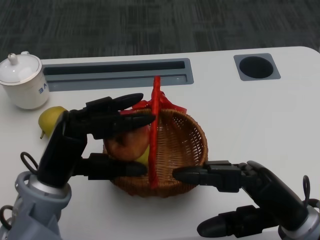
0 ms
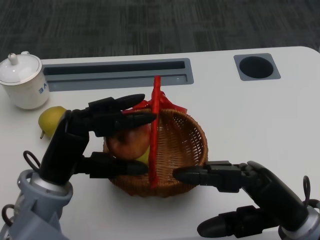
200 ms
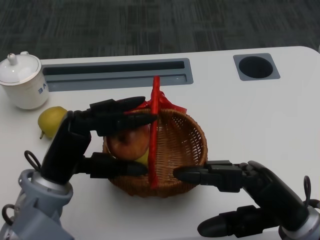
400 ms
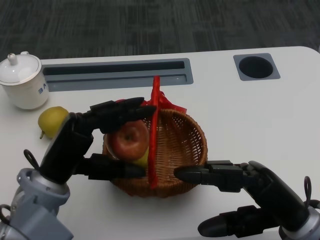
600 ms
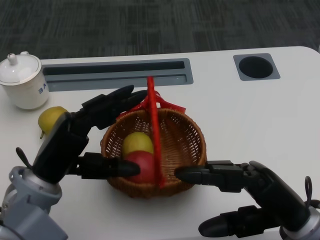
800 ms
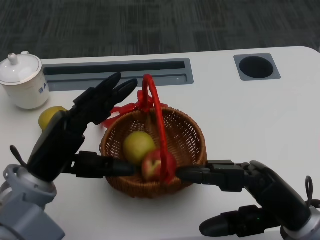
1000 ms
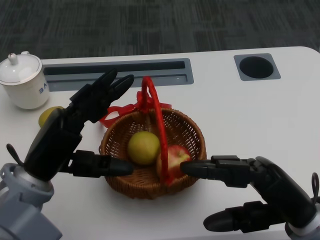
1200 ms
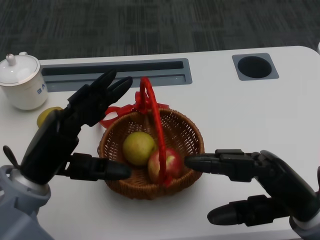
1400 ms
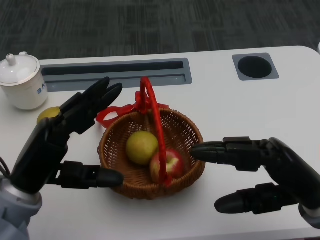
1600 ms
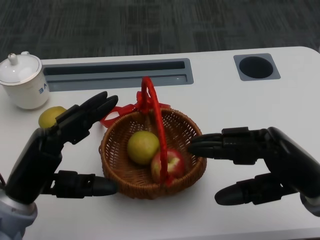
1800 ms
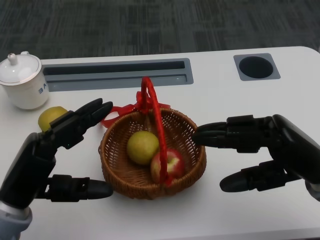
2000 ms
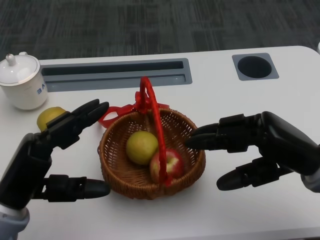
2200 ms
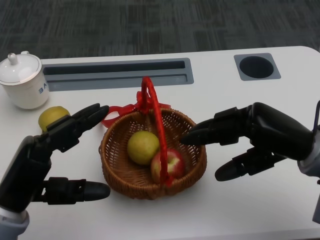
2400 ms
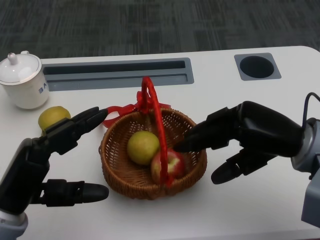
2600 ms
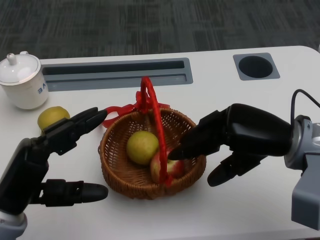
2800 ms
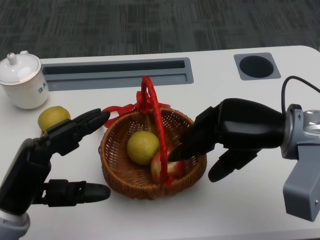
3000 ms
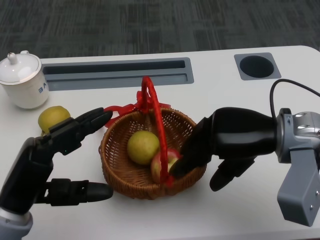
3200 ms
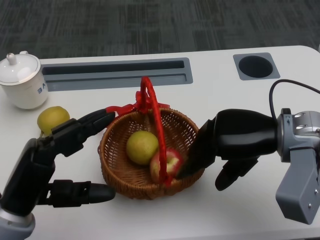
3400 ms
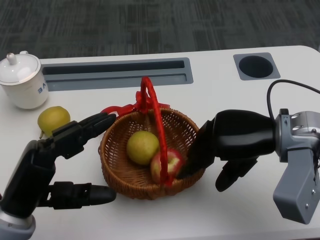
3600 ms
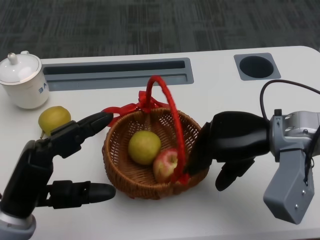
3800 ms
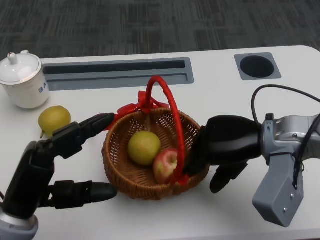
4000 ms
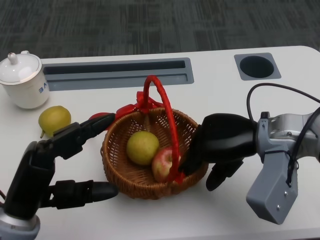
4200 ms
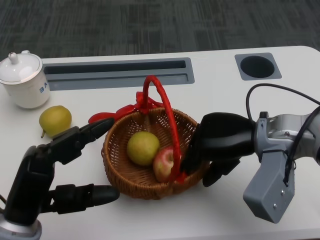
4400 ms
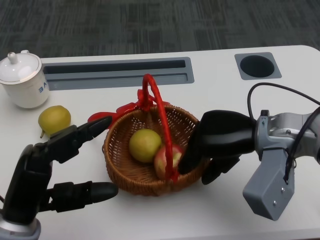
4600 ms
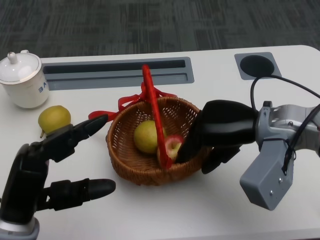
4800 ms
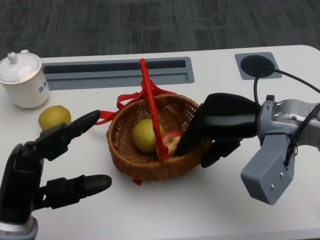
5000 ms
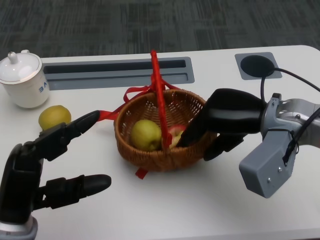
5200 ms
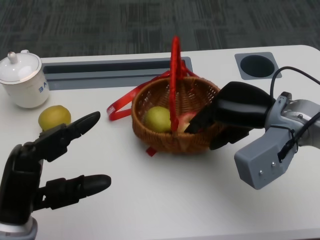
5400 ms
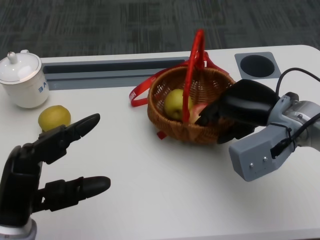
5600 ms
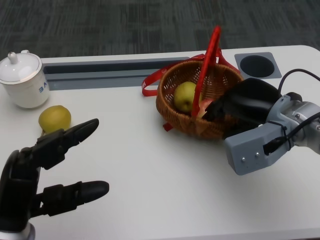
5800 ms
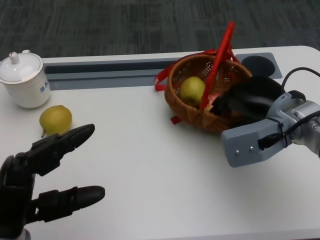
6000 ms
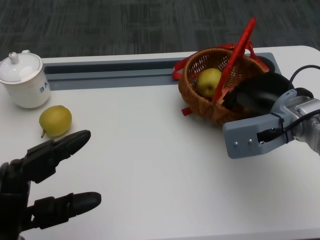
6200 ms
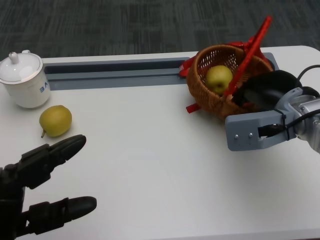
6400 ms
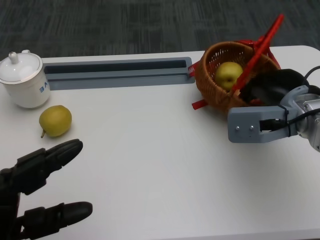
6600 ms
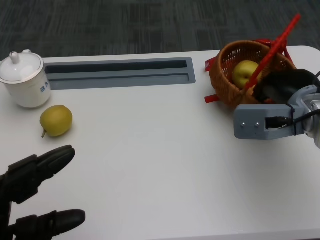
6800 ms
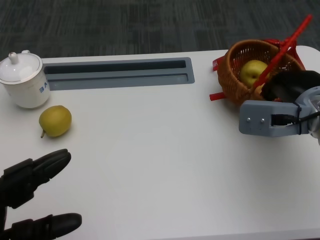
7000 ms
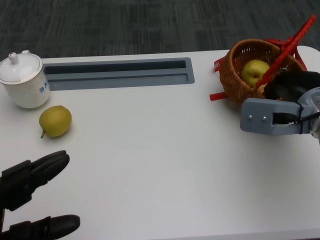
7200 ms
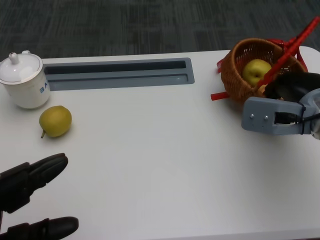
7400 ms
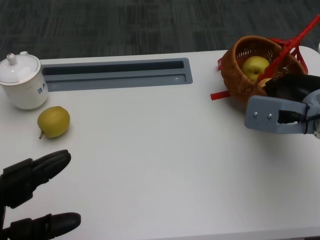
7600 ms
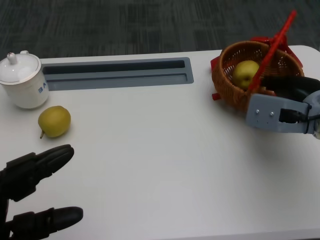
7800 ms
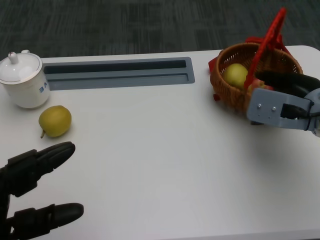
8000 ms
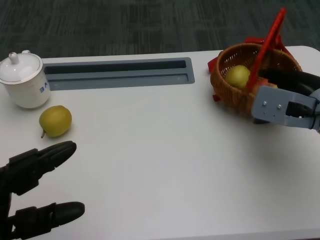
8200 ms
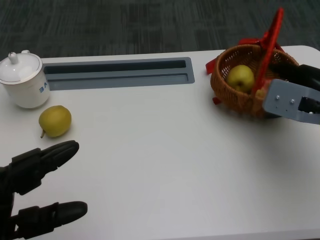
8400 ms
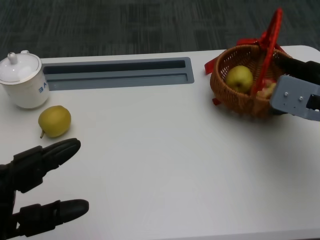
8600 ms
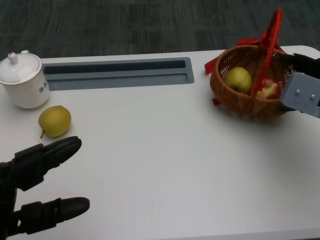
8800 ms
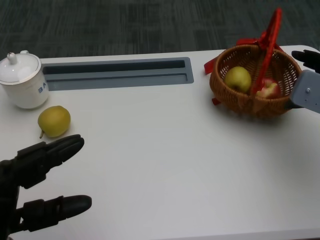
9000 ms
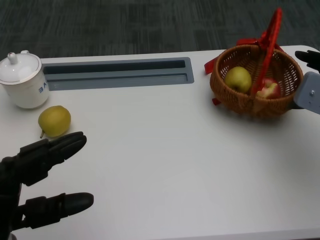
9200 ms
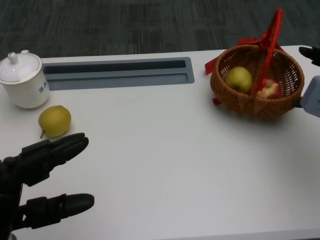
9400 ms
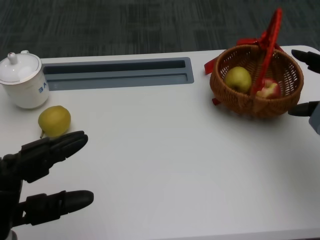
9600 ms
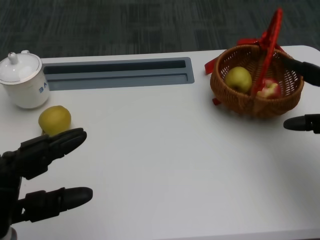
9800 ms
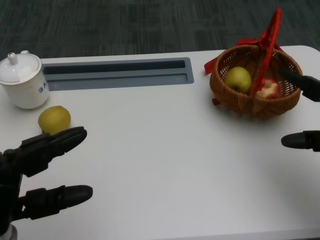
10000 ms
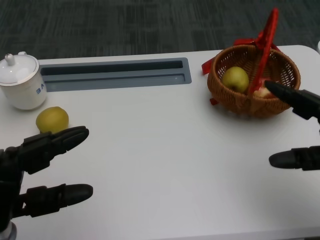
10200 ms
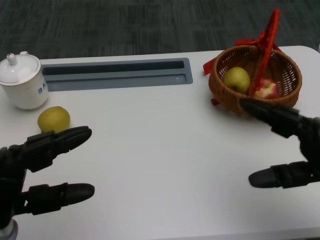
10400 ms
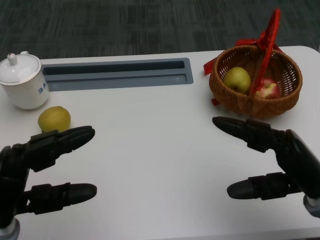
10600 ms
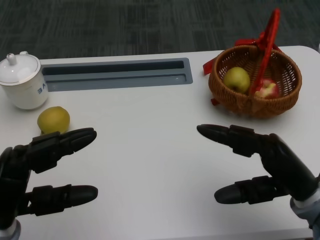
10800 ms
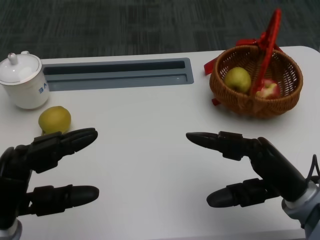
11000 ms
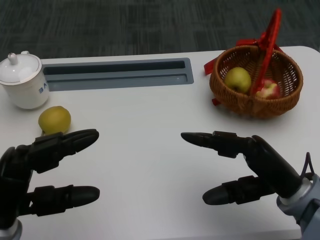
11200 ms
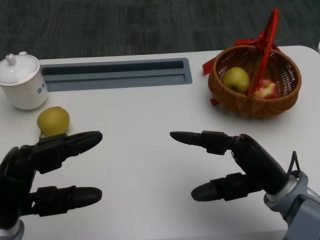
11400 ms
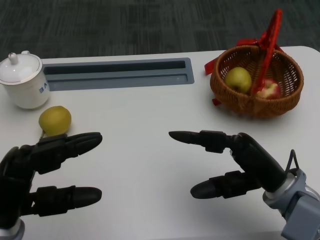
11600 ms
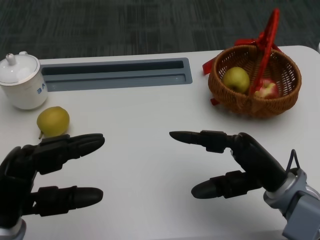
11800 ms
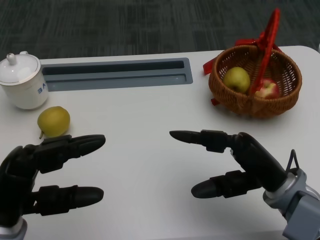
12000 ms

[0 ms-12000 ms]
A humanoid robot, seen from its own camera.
Step, 0 ms to 2800 ms: Grasp the basket with the right gripper.
Step, 3000 ms to 5400 ms: Move the basket to the front of the table with the right gripper.
1600 ms to 3000 ms: The right hand moves forward, approximately 10 cm.
7600 ms to 9000 ms: The right hand heads to the right, covering some 5 cm.
9000 ms to 10400 ms: The right hand travels backward and downward by roughly 10 cm.
10400 ms to 12000 ms: The right hand heads to the left, covering about 10 cm.

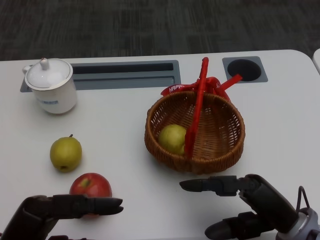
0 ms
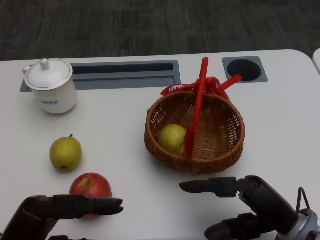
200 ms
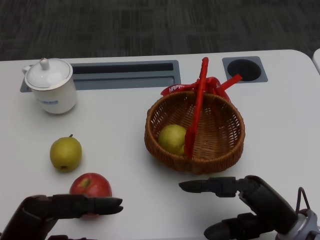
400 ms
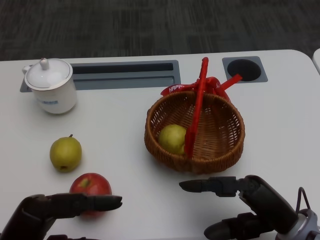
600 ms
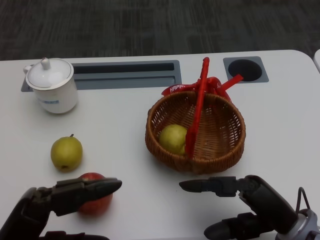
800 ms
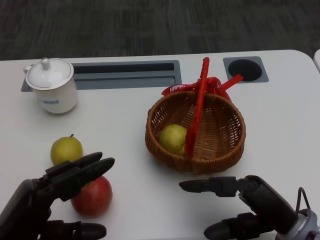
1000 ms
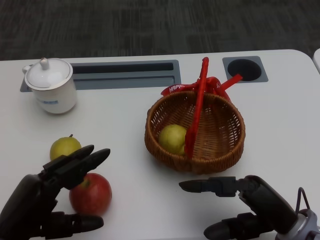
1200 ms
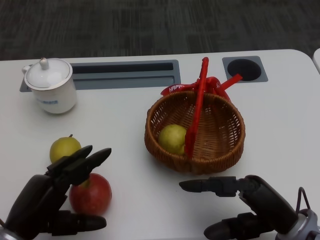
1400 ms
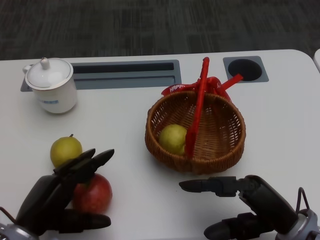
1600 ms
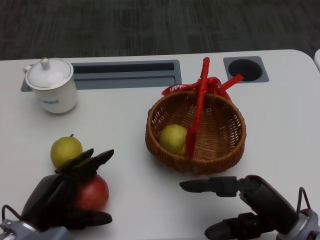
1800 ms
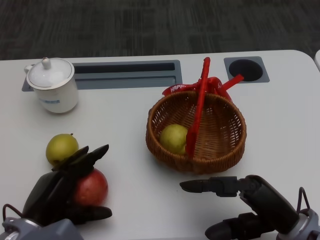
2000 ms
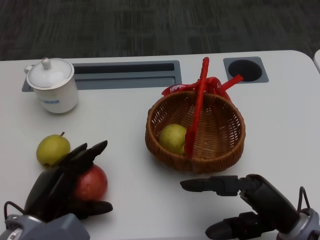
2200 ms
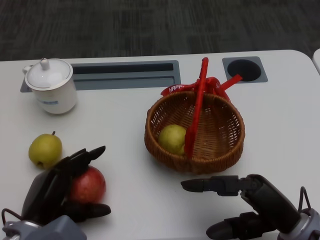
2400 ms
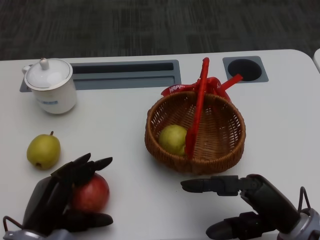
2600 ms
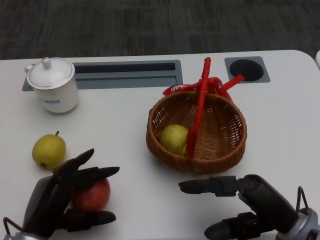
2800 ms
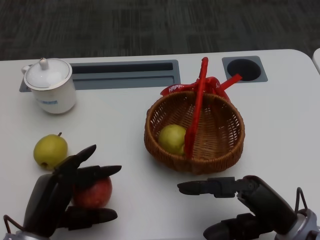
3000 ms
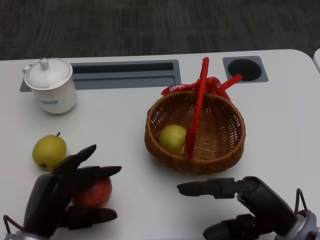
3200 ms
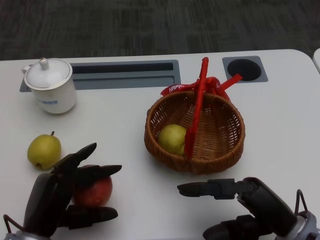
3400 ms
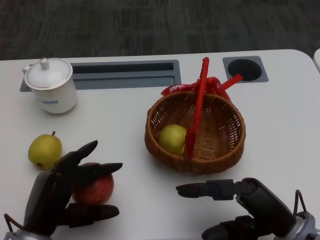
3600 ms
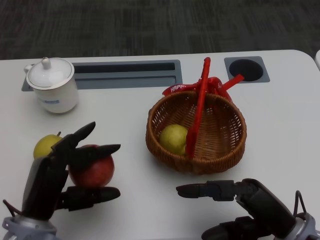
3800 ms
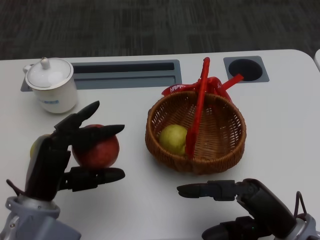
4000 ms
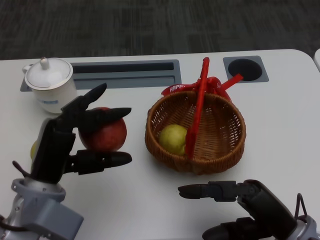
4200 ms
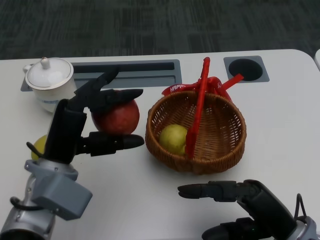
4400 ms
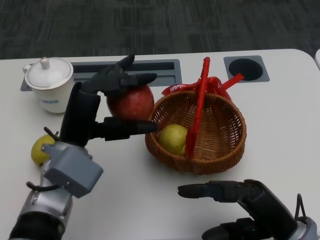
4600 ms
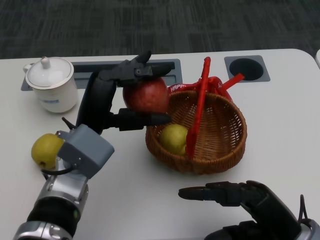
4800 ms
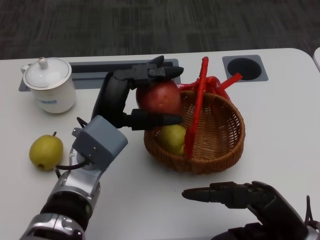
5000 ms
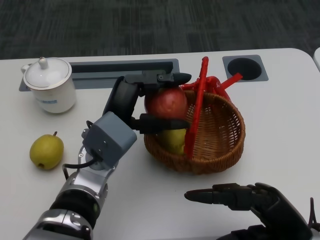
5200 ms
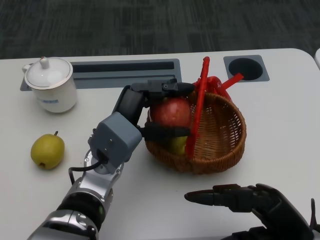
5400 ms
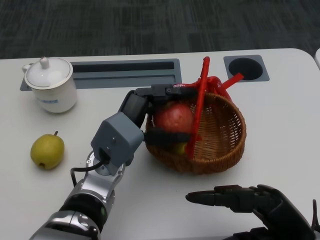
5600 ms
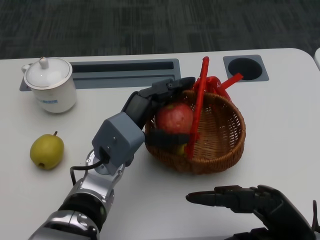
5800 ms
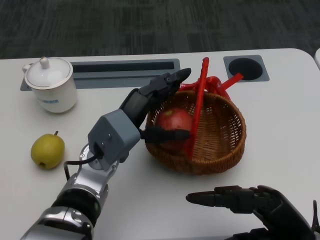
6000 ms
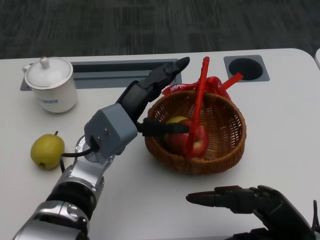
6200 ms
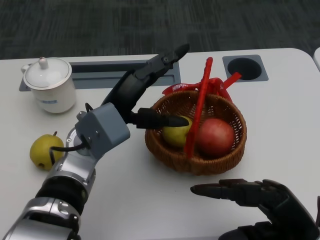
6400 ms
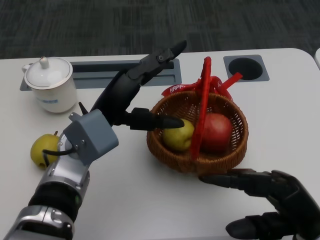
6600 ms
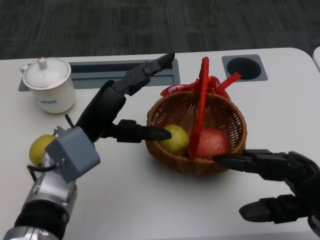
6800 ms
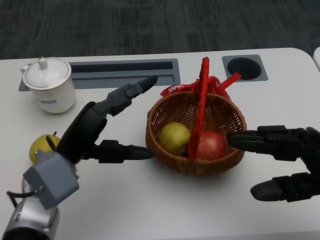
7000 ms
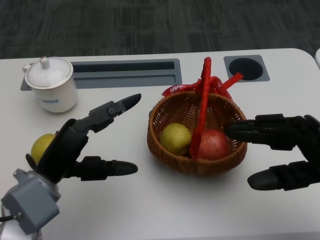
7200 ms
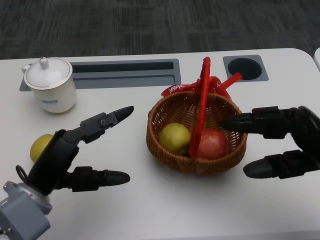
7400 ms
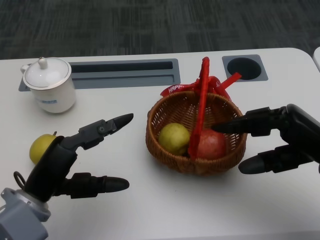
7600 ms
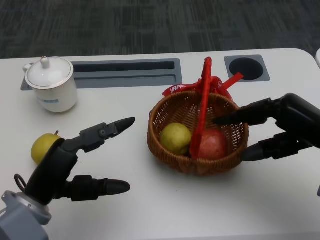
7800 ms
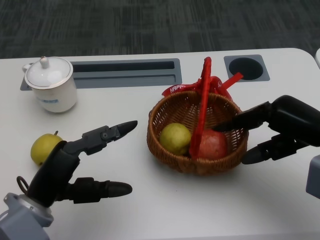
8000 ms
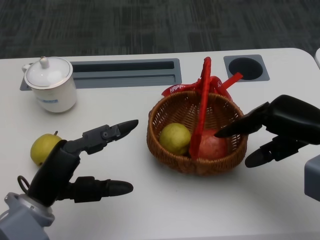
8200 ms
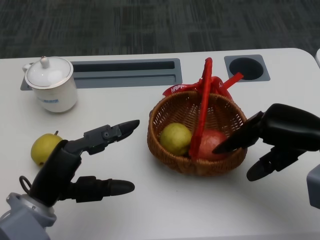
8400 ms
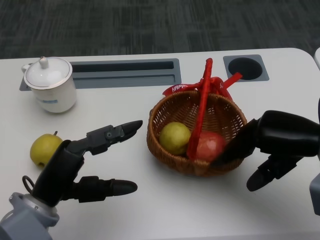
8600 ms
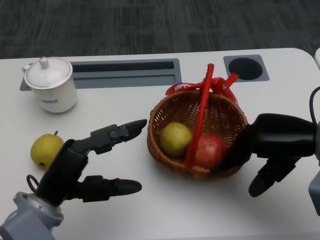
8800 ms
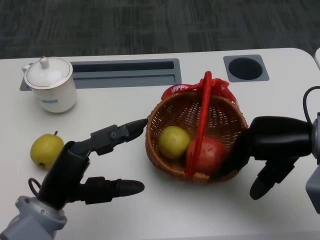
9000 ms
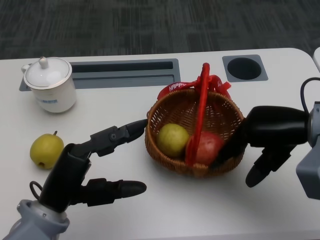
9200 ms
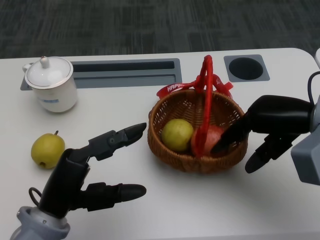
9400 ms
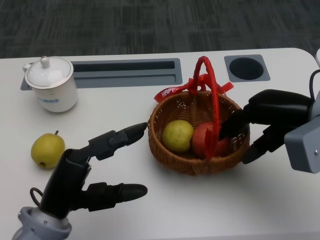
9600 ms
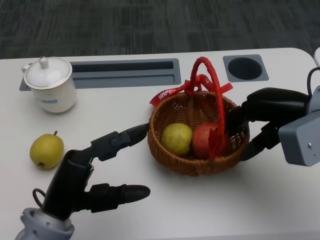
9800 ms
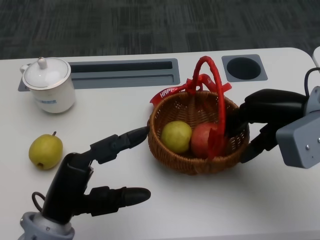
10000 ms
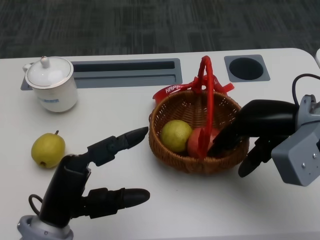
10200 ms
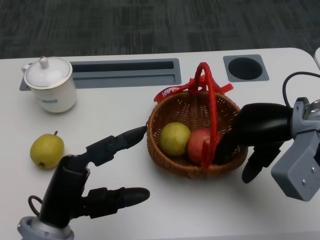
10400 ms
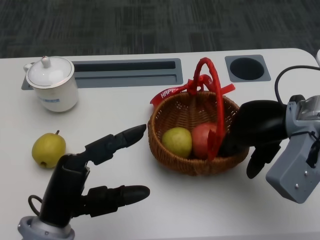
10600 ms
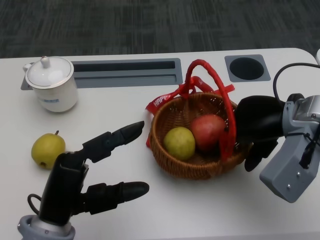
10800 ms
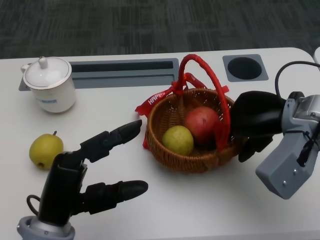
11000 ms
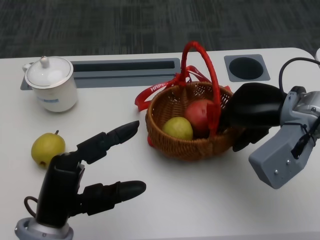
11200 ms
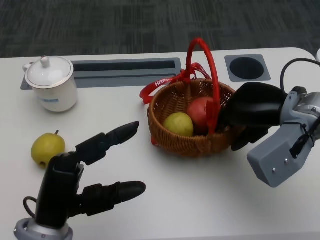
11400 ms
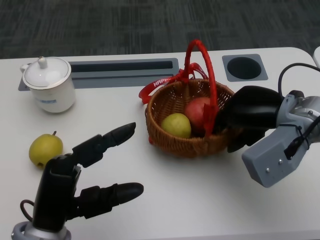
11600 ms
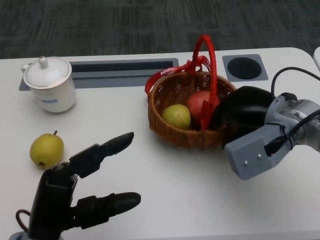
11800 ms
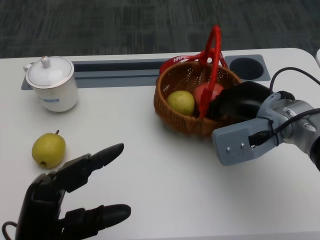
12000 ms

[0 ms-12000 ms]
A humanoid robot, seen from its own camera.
Step, 600 ms to 2000 ms: Grasp the apple with the left gripper.
Step, 2200 ms to 4800 ms: Place the apple into the basket with the left gripper.
Step, 5200 ms to 8800 ms: Grasp the basket with the right gripper.
Step, 9000 ms to 10800 ms: Move the basket to the front of the table with the right gripper.
1600 ms to 3000 ms: The hands stay close to where they were, moving slightly.
3000 ms to 4400 ms: The left hand heads upward and forward, covering approximately 10 cm.
4400 ms to 6000 ms: The left hand moves to the right, roughly 5 cm.
6000 ms to 7600 ms: The left hand moves to the left and backward, about 15 cm. Meanwhile the right hand heads forward and upward, covering some 10 cm.
